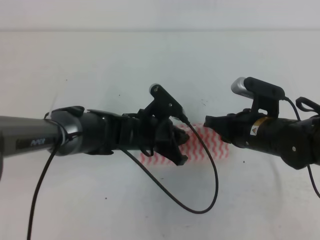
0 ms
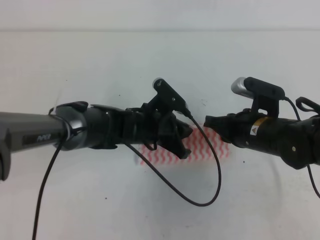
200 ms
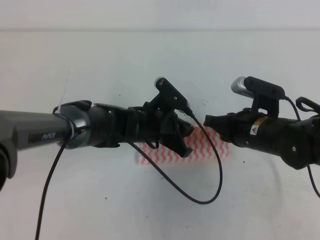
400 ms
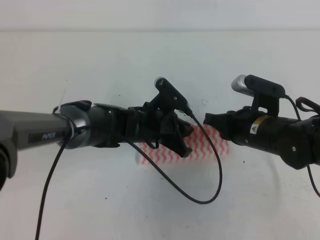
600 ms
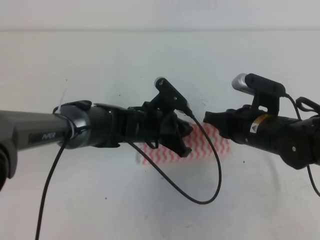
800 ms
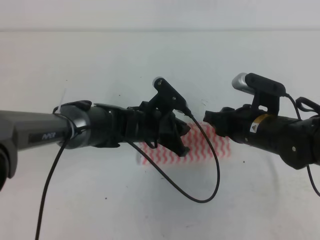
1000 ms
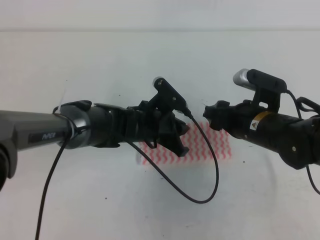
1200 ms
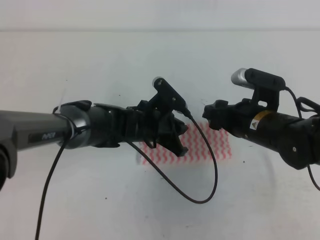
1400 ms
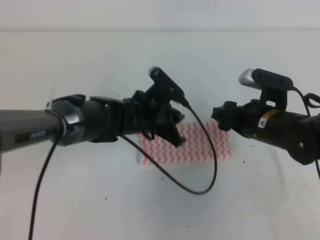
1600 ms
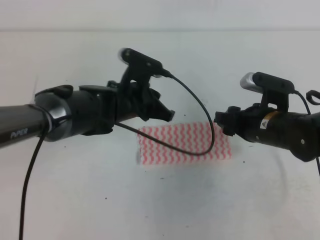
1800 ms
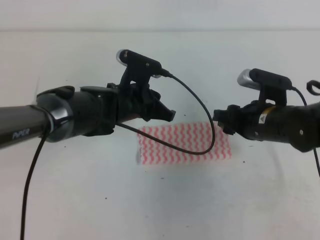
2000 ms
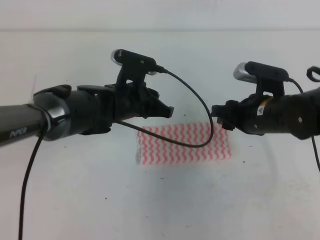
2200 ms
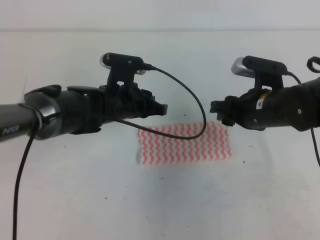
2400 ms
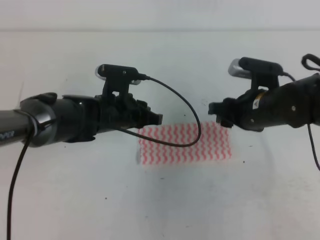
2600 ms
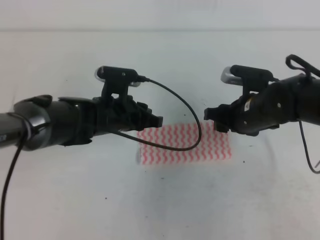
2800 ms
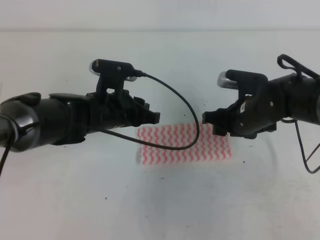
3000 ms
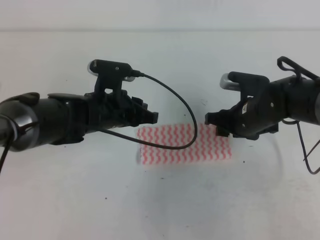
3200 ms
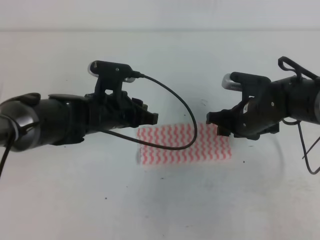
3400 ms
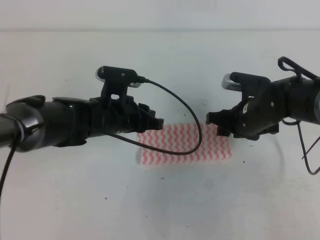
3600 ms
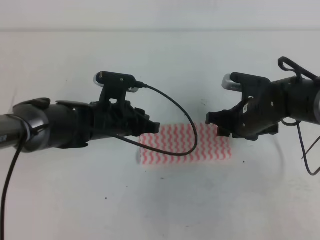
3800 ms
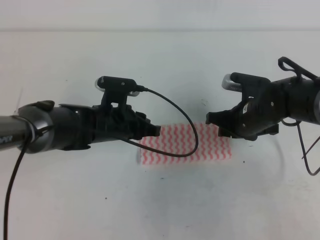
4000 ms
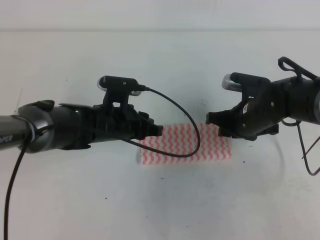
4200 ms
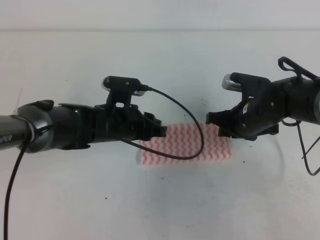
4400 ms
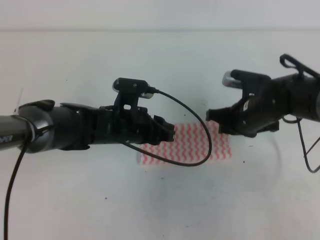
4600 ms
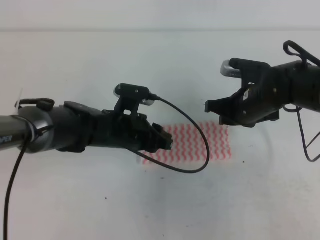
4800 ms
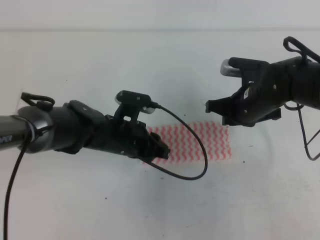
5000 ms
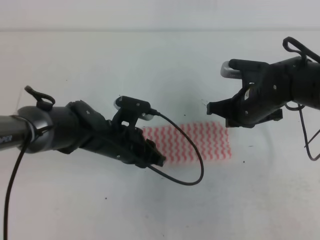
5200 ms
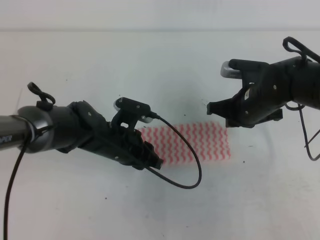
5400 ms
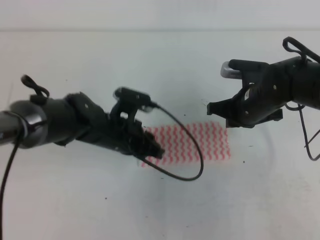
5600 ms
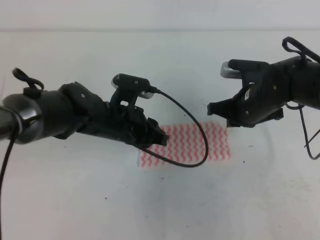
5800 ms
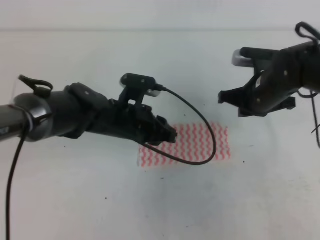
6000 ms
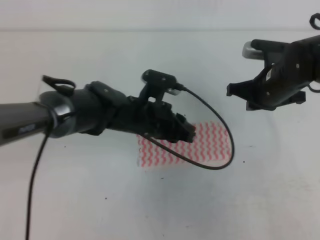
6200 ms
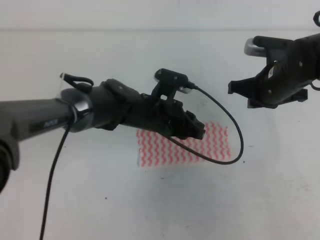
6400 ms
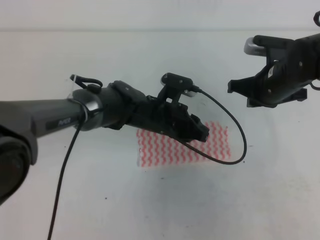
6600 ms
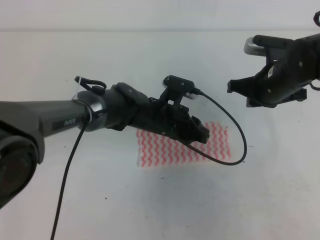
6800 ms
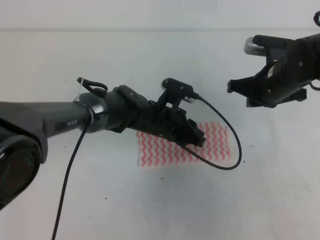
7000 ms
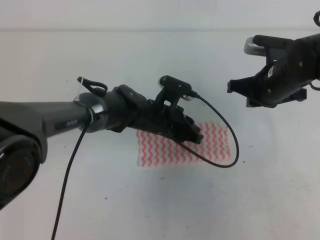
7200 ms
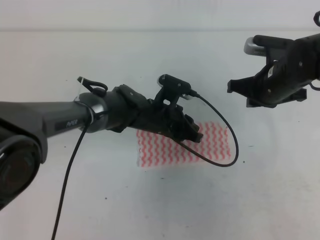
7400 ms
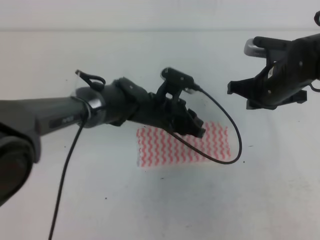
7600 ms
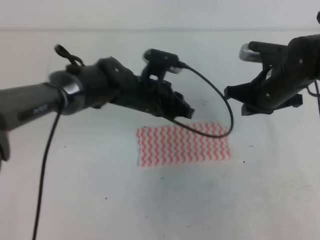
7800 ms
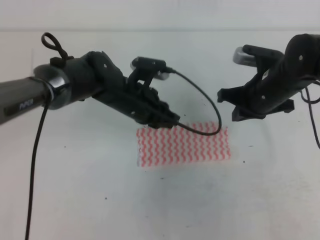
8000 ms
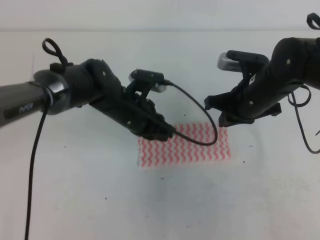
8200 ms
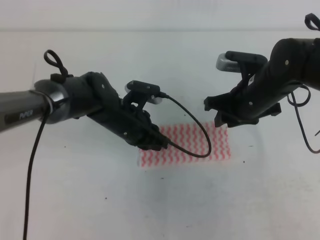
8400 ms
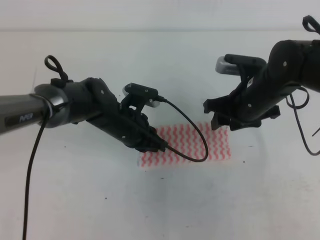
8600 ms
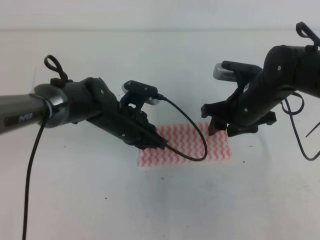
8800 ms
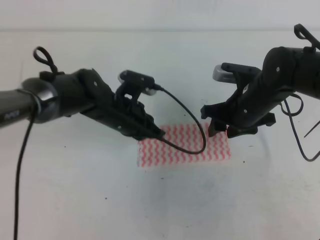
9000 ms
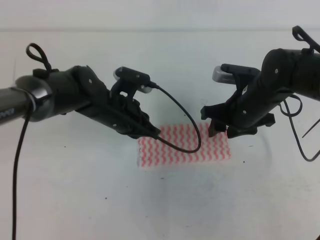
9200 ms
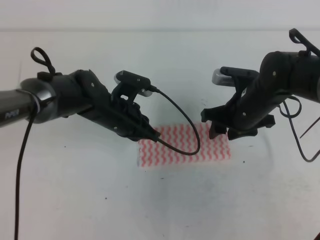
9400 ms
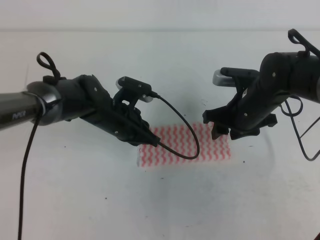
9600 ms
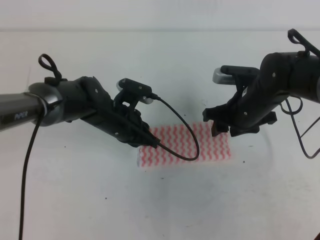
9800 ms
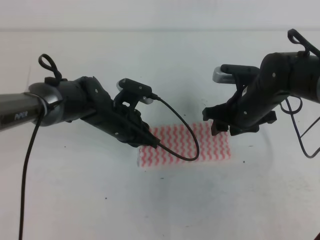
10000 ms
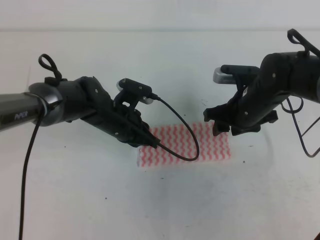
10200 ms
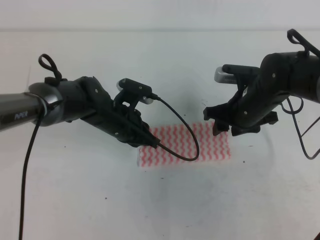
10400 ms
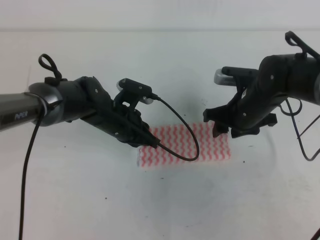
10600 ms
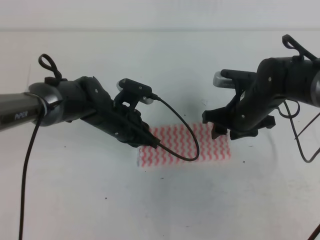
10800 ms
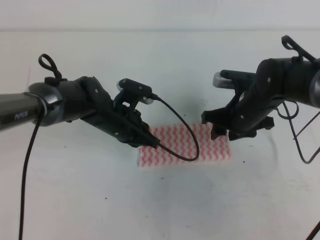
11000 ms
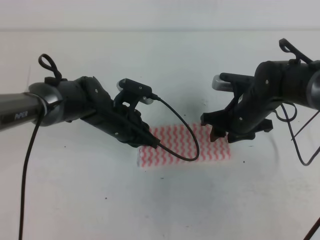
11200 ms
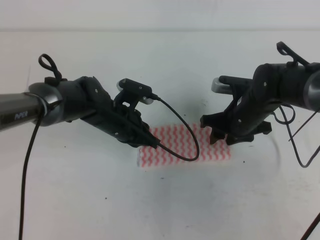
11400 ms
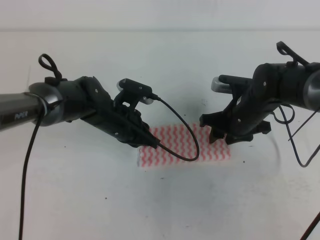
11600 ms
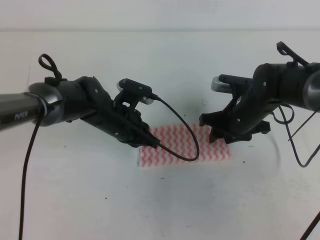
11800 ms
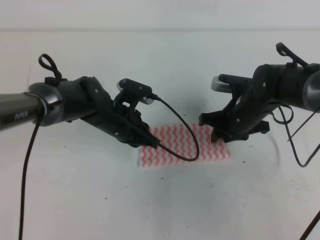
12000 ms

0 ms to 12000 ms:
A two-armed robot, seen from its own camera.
0 ms to 1600 ms: The right gripper opens its fingers.
1600 ms to 3000 ms: The left gripper moves to the left, roughly 5 cm.
3000 ms to 4400 ms: The grippers move only a little.
4400 ms to 6000 ms: The right gripper closes.
6000 ms to 7600 ms: The left gripper ends up some 5 cm from where it was.
7600 ms to 9000 ms: The left gripper goes approximately 5 cm to the left; the right gripper moves approximately 5 cm, and opens up.
9000 ms to 10400 ms: The grippers make only small movements.
10400 ms to 12000 ms: The right gripper closes.

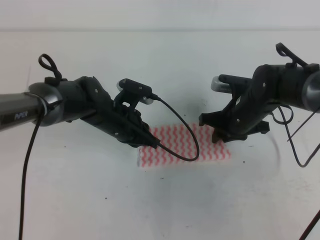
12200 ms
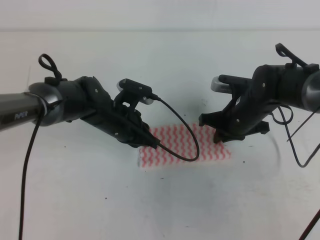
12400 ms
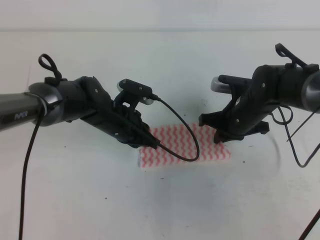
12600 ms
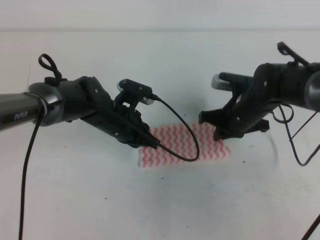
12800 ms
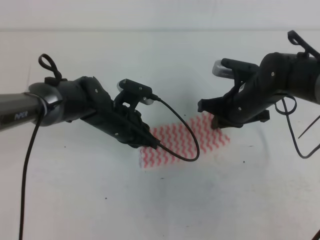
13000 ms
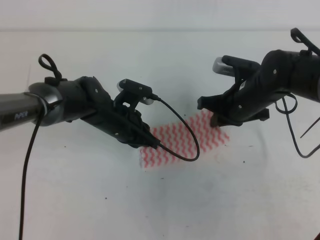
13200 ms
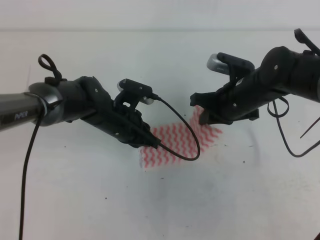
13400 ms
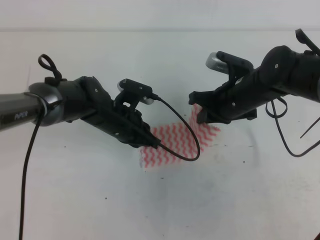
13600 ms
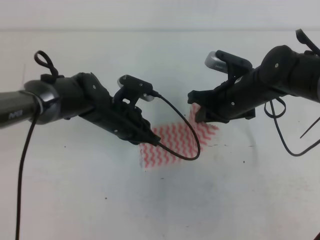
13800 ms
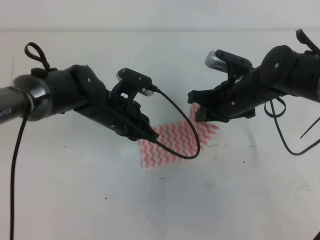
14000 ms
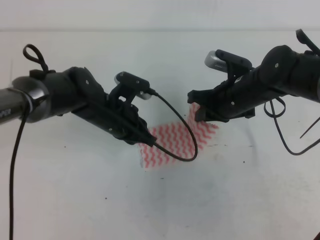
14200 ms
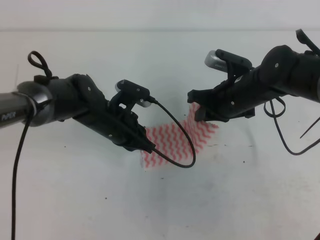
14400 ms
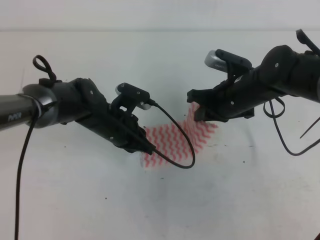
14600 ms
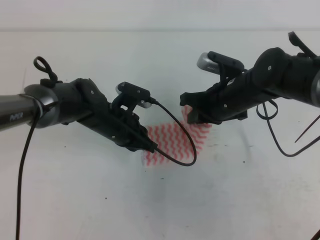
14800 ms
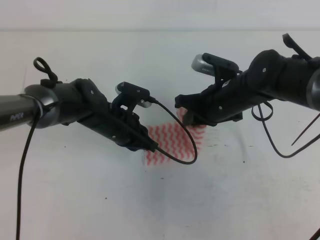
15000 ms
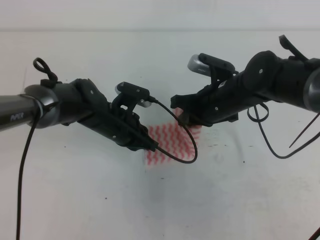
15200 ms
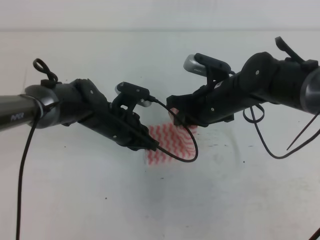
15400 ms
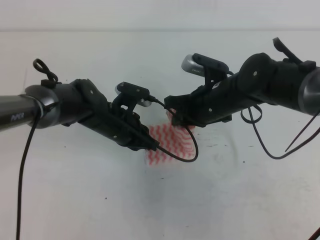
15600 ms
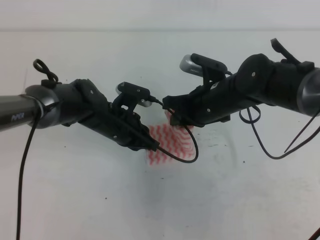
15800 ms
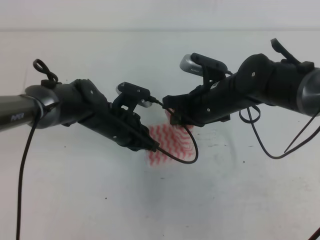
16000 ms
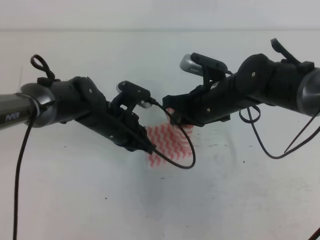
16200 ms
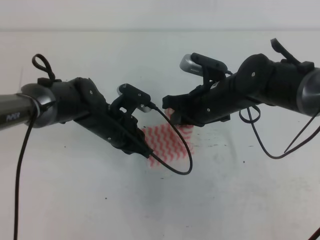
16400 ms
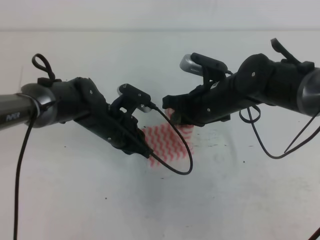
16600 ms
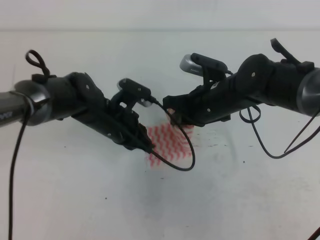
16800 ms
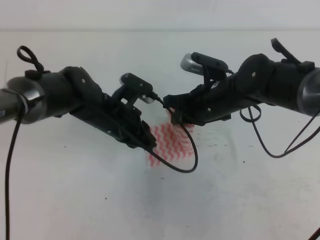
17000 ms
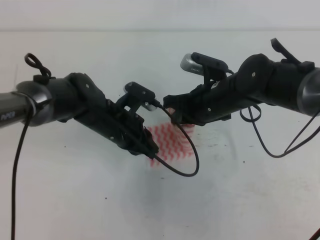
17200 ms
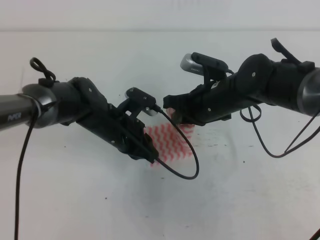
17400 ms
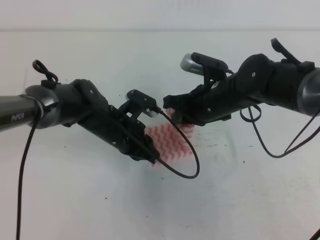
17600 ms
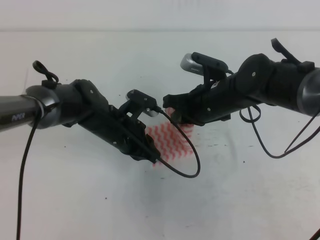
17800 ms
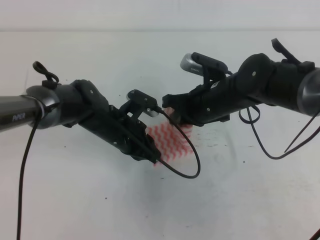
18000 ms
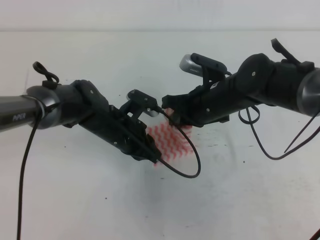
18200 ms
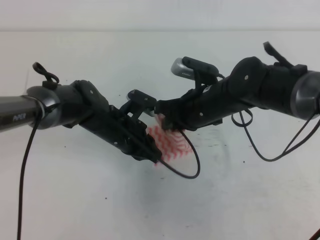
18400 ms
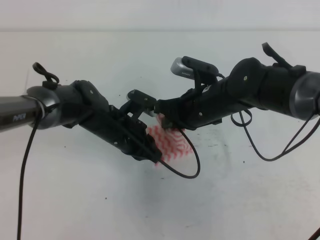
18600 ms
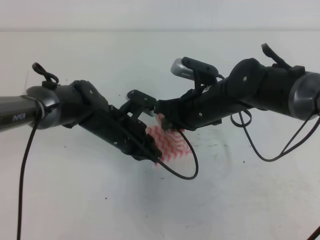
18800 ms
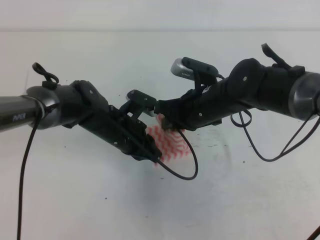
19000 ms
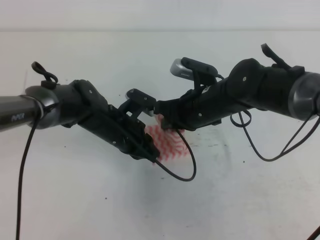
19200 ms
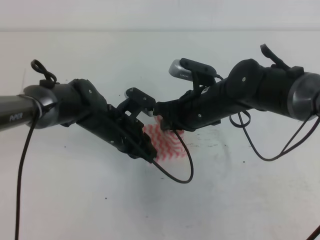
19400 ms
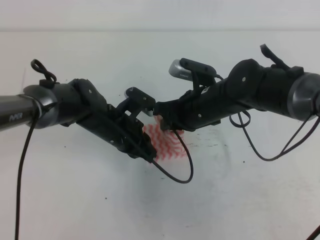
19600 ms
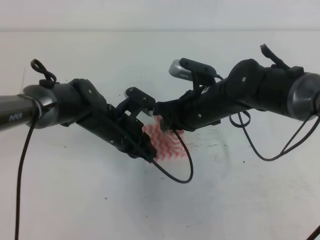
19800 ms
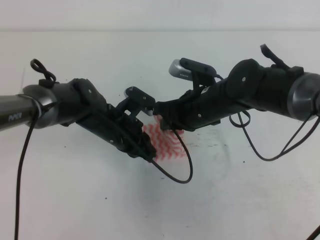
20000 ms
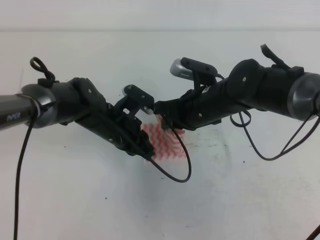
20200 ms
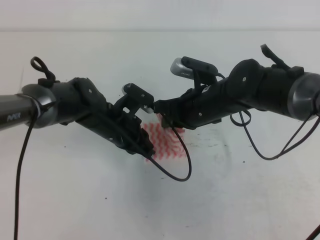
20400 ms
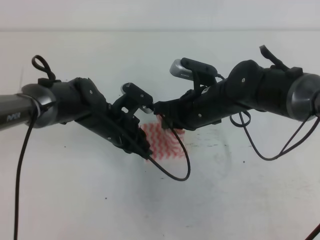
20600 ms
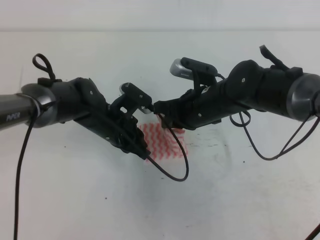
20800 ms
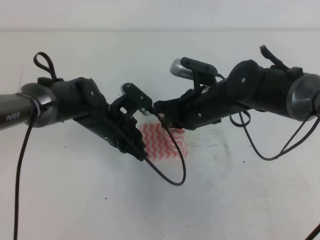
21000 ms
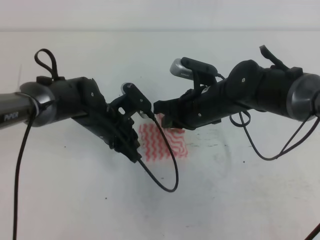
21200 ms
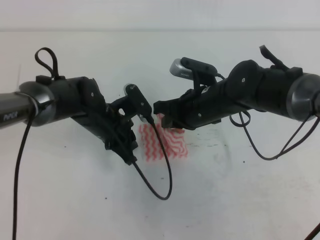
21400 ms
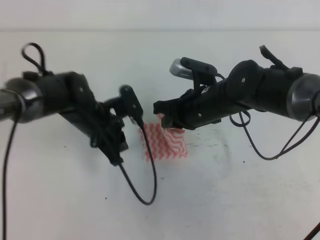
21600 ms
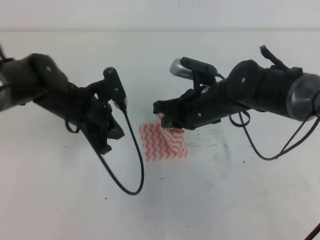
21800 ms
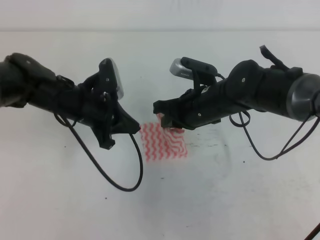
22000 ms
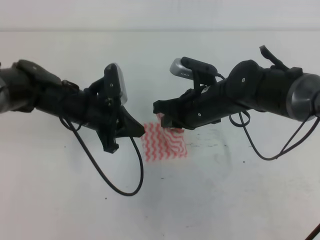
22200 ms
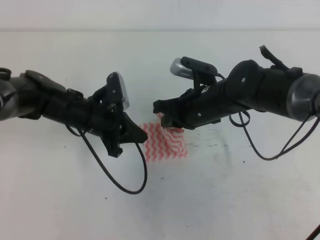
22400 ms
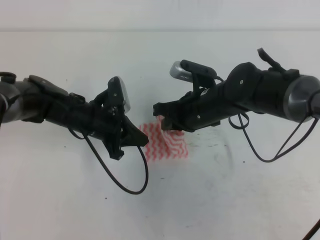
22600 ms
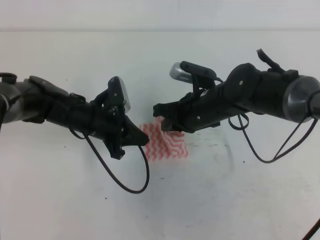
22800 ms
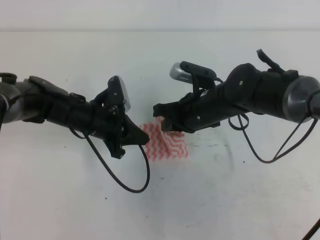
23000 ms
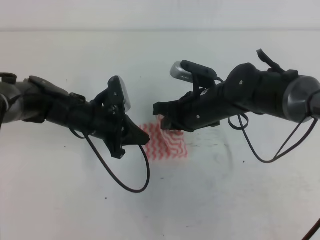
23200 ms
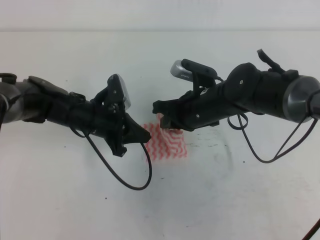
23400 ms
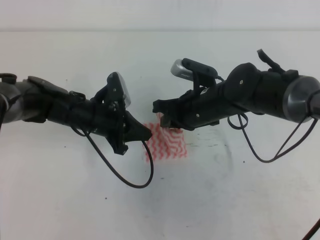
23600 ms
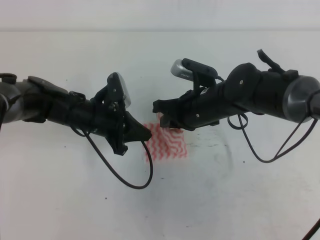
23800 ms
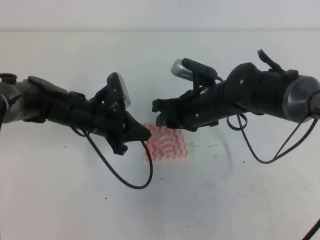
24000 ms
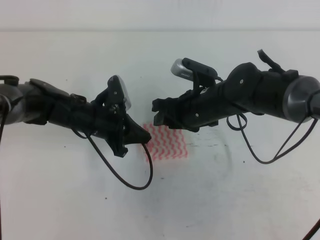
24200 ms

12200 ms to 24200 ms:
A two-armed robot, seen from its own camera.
12200 ms to 13800 ms: The right gripper is displaced upward by about 5 cm.
13800 ms to 18200 ms: The grippers move only a little.
18200 ms to 19800 ms: The grippers move only a little.
19800 ms to 21200 ms: There are only small adjustments of the grippers.
22600 ms to 24200 ms: The right gripper opens its fingers.
